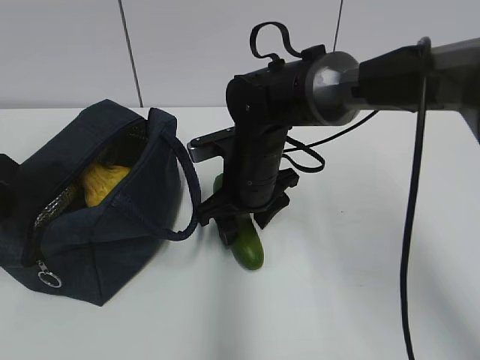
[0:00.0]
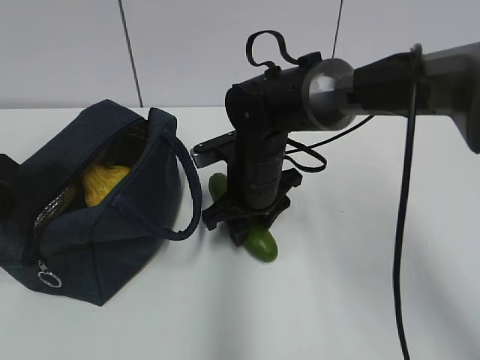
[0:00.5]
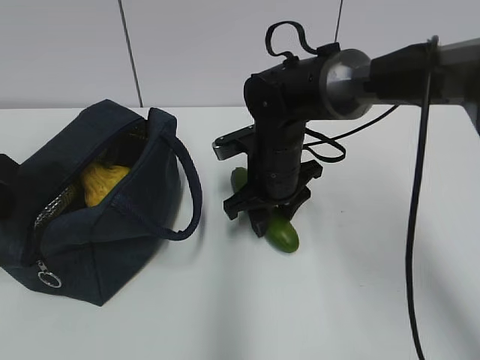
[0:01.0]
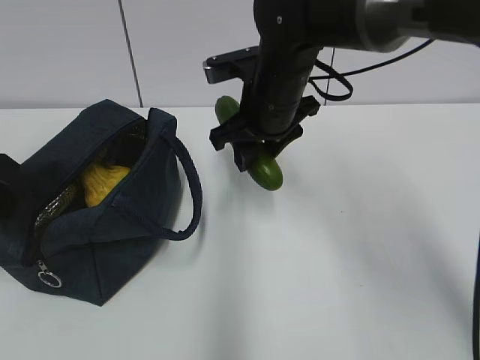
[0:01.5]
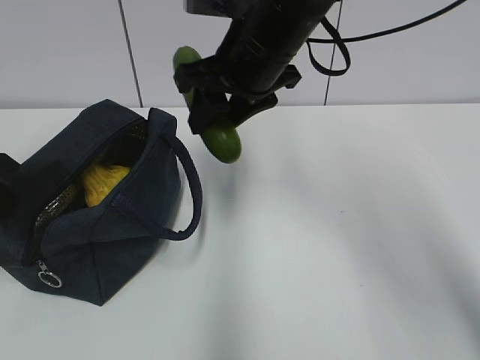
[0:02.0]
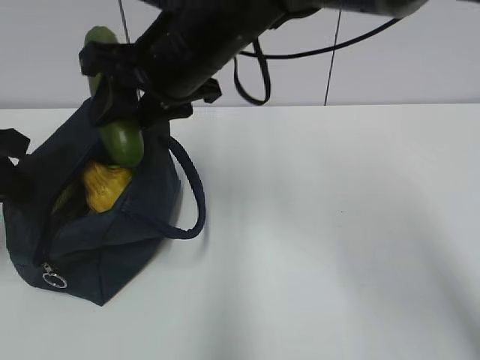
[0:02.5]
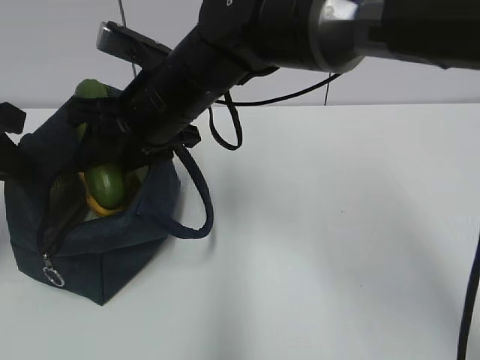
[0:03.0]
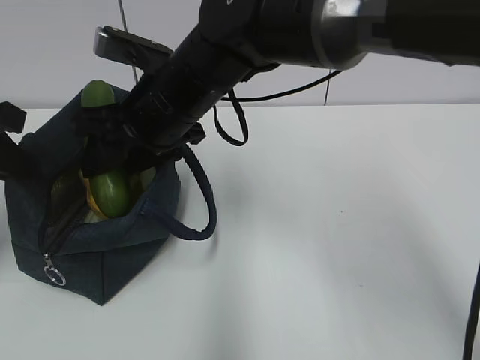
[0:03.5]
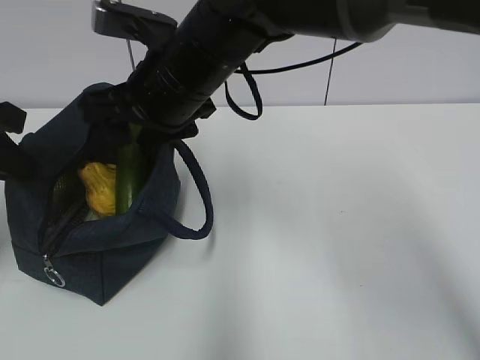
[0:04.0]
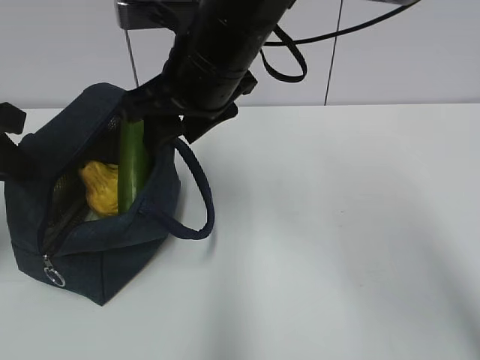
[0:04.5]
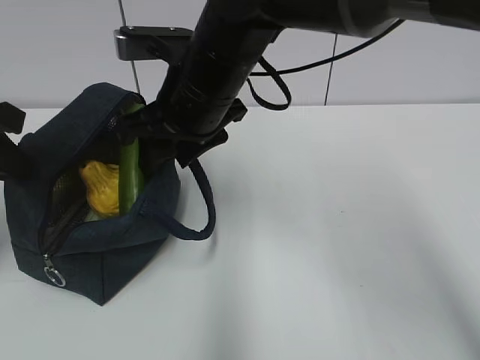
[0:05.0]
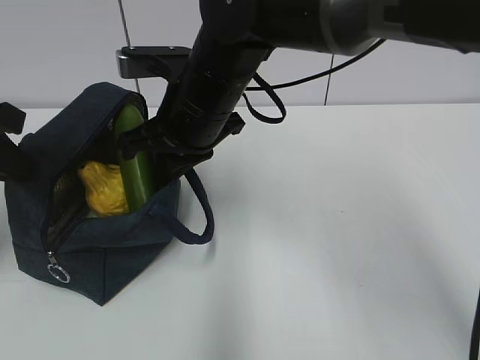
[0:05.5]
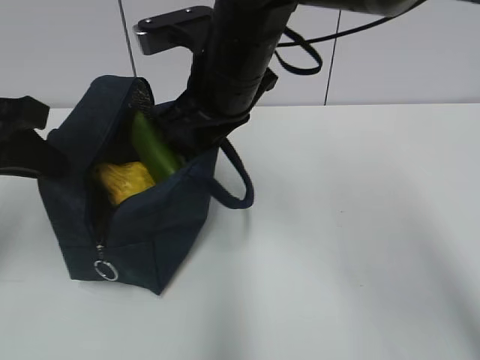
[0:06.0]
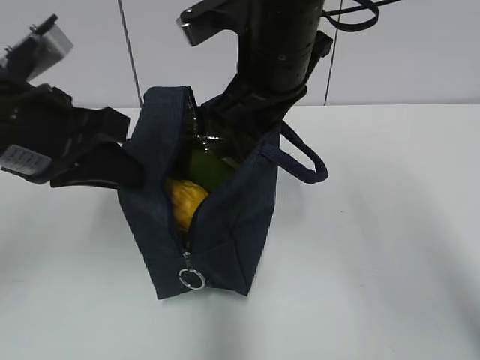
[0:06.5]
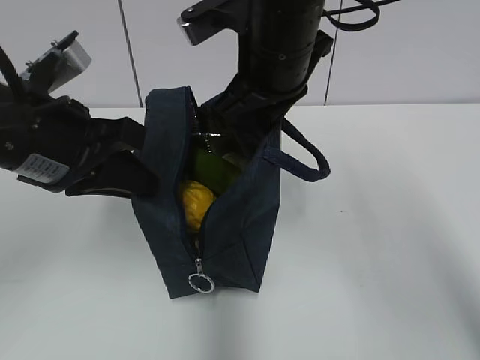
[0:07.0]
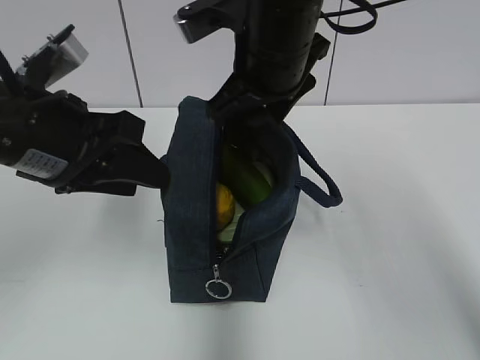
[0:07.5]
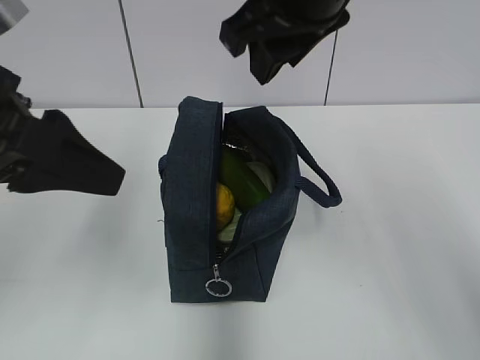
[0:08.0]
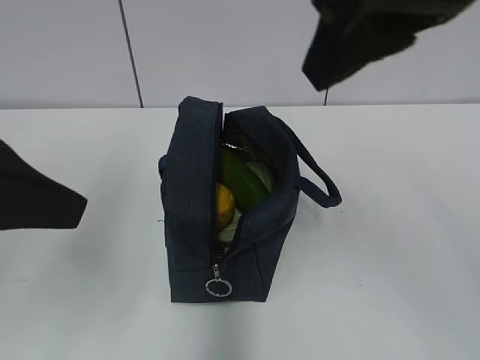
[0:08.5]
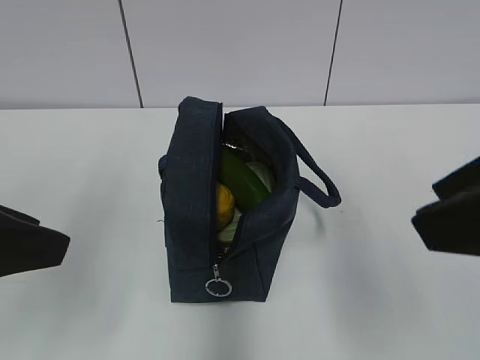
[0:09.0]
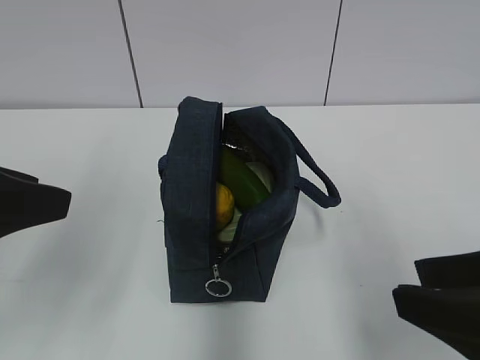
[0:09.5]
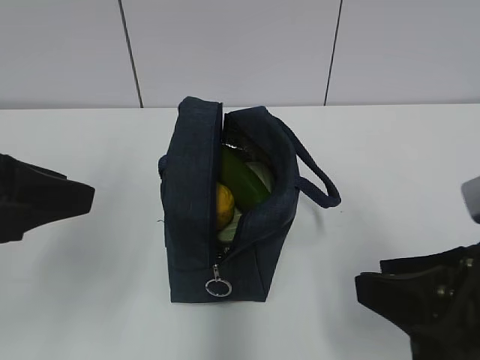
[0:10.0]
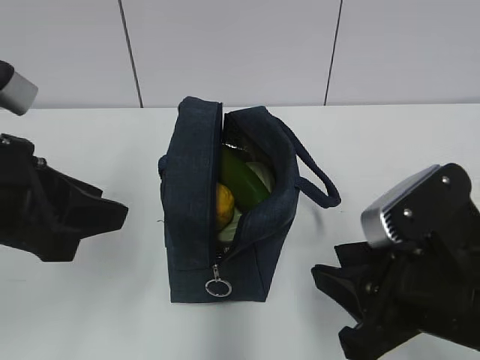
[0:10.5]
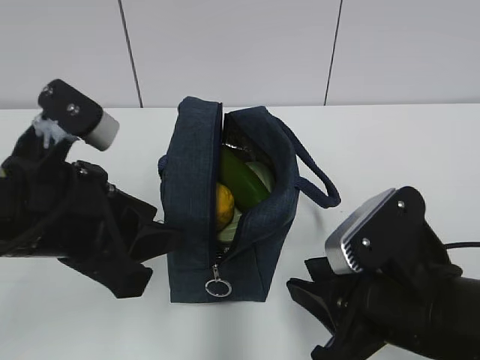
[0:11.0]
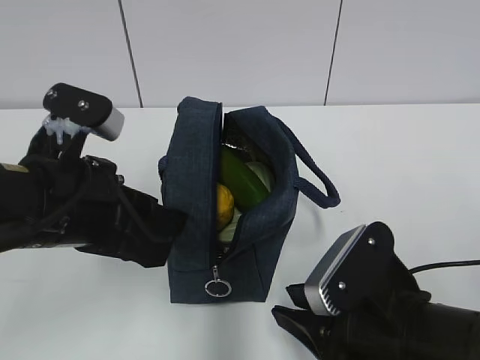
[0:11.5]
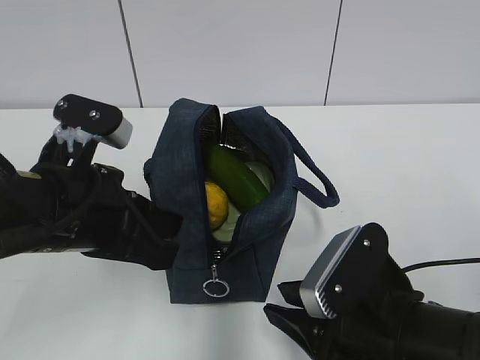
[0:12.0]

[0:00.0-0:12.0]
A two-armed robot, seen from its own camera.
Step, 1.0 to 4.5 s: Place it into the bag with your right hand.
Step, 5.0 to 5.5 s: Grab the lunch bag with your right hand.
0.0 to 2.0 s: The right gripper shifts approximately 15 cm upward.
2.0 to 4.0 s: The right gripper travels to the left by approximately 5 cm.
4.0 to 6.0 s: The right gripper closes up.
6.0 to 8.0 s: The left gripper heads backward and to the right, covering some 5 cm, and opens its fingers, while the right gripper heads upward and to the right, covering some 10 cm, and opens.
8.0 to 10.0 s: The right gripper shifts roughly 25 cm backward, downward and to the right.
10.0 to 12.0 s: The left gripper shifts about 10 cm to the right and downward, and closes its fingers, while the right gripper heads downward and to the left, covering approximately 10 cm.

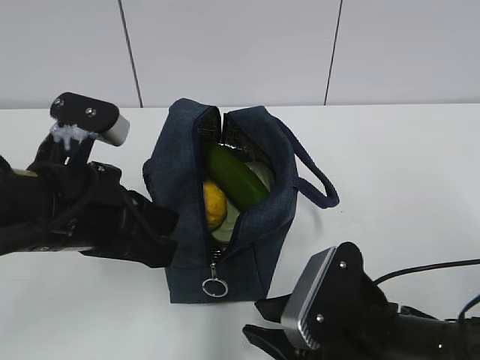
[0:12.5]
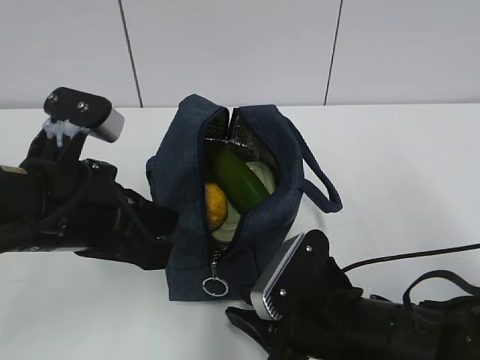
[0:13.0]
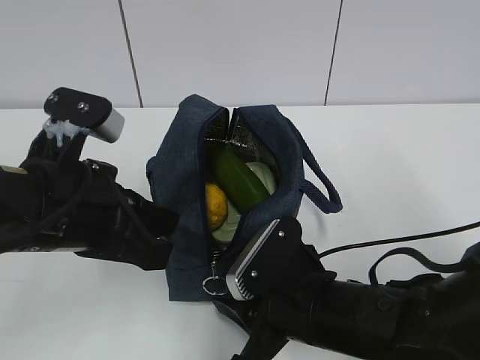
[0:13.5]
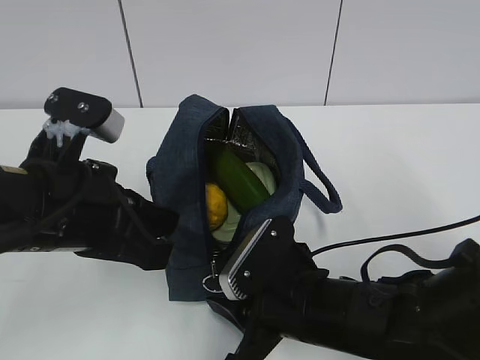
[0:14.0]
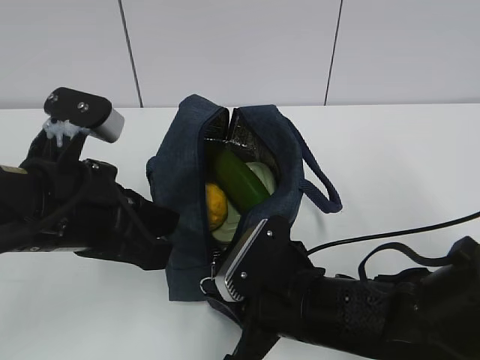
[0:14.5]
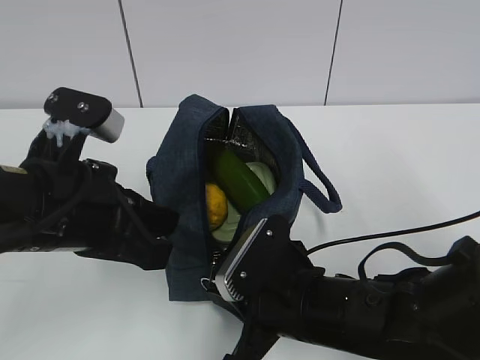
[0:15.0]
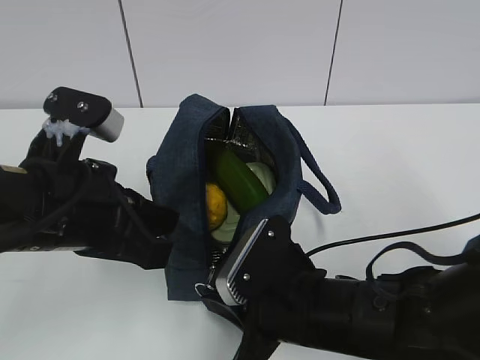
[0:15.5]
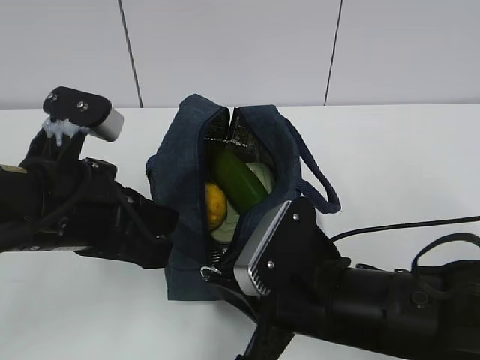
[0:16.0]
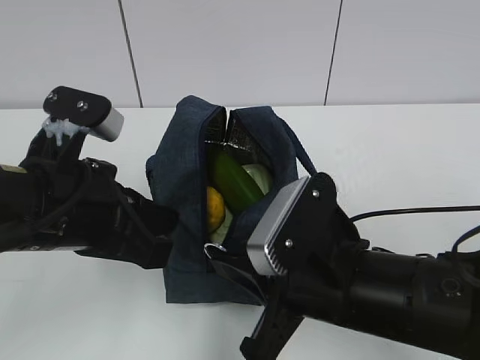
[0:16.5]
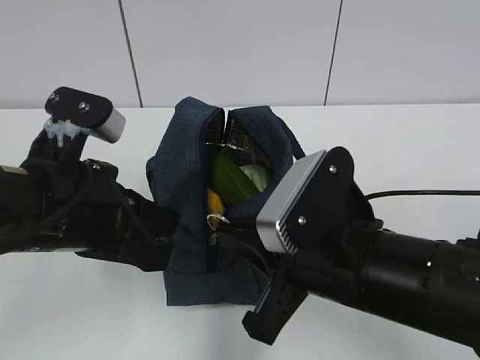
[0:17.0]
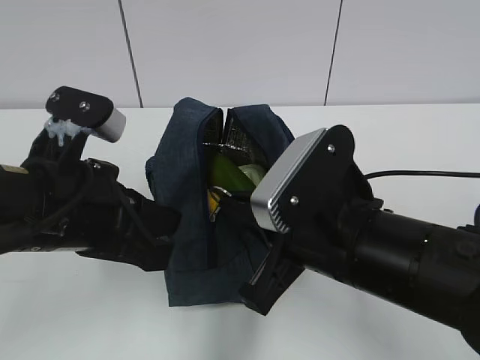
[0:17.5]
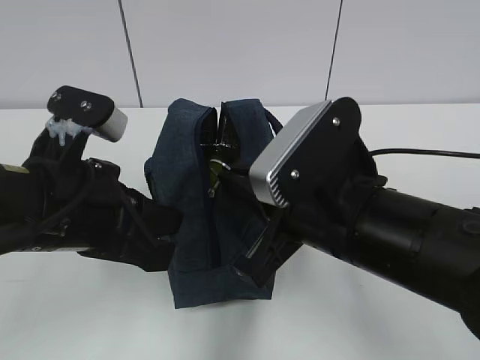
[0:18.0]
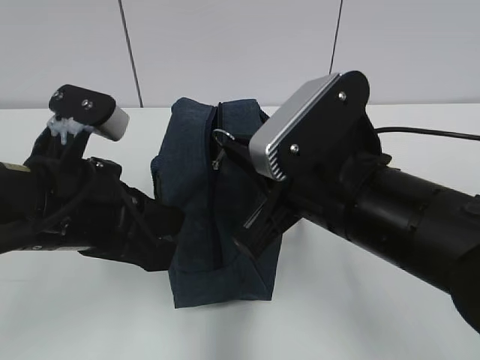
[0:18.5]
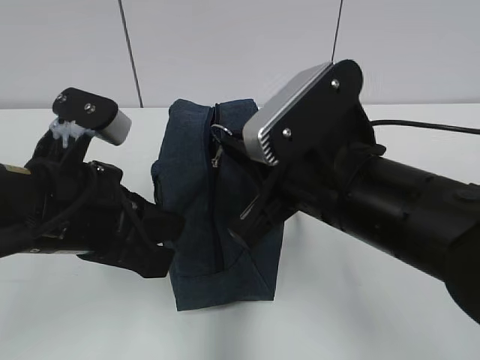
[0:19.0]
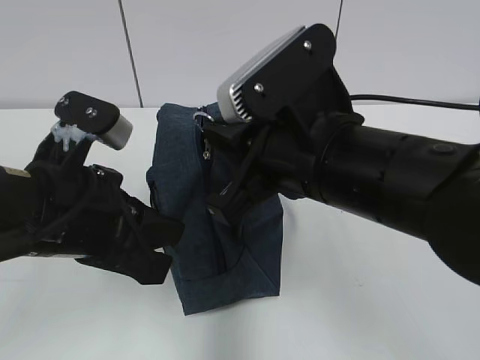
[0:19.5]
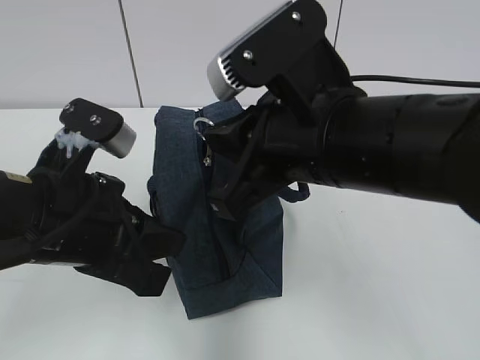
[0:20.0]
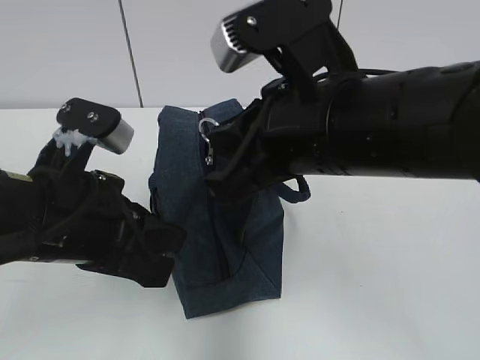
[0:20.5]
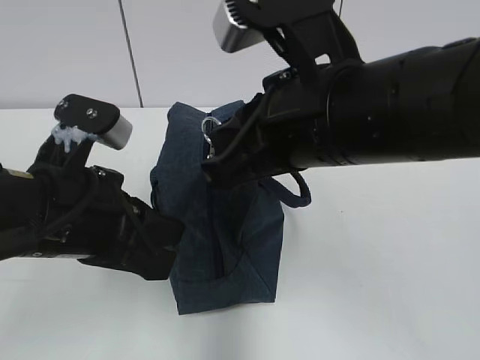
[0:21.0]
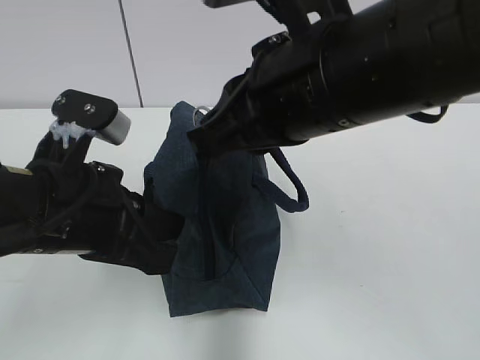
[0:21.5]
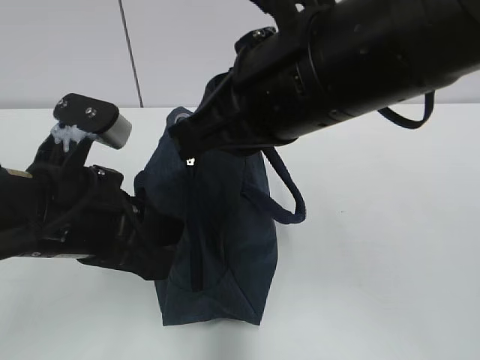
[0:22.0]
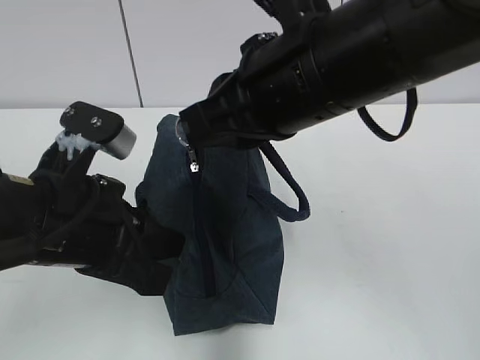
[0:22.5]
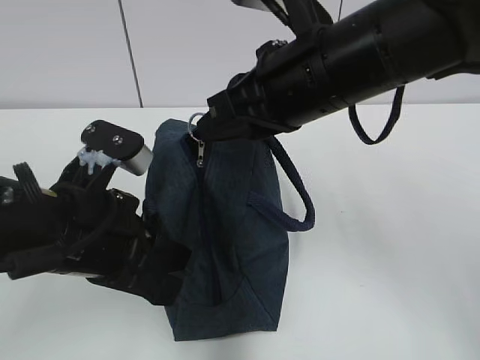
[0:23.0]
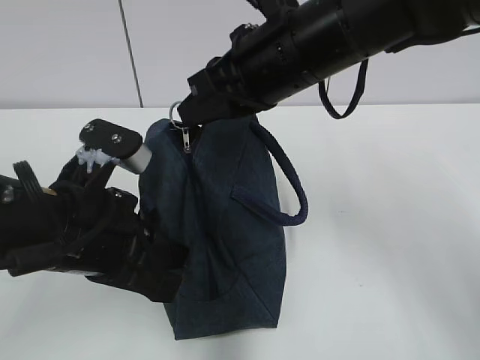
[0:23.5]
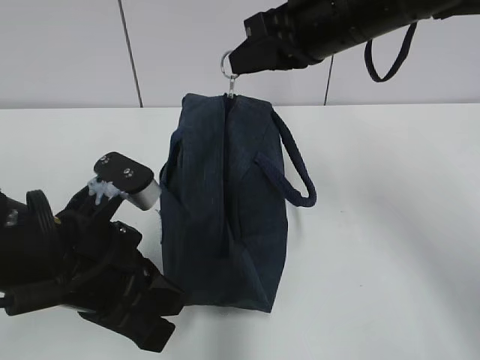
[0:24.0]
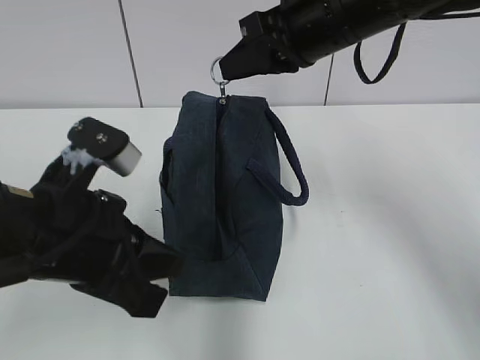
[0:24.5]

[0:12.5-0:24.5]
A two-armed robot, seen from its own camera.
12.5 to 14.5 s: The right gripper shifts by about 5 cm.
14.5 to 16.5 s: The right gripper heads upward, covering roughly 5 cm.
16.5 to 18.5 s: The right gripper travels upward by some 5 cm.
18.5 to 20.5 s: The right gripper travels upward by roughly 5 cm.
22.5 to 24.5 s: The right gripper heads forward, covering about 10 cm.

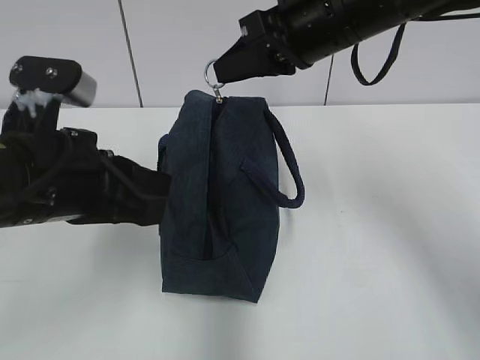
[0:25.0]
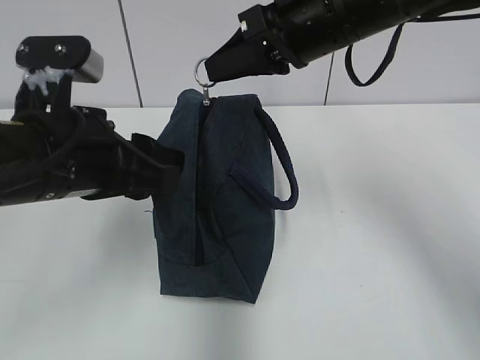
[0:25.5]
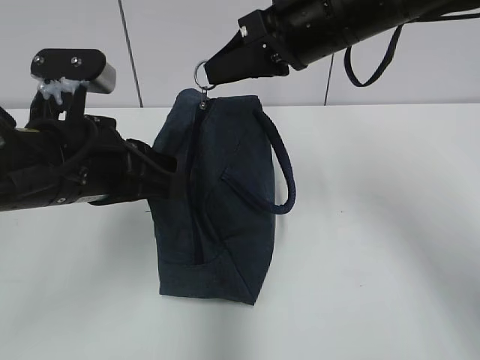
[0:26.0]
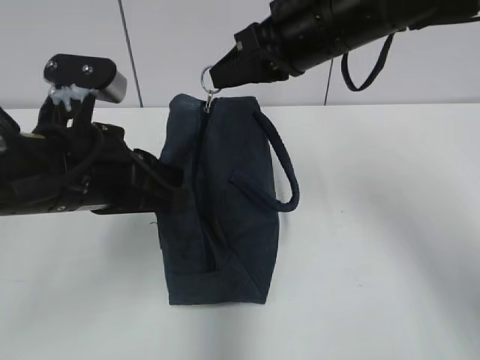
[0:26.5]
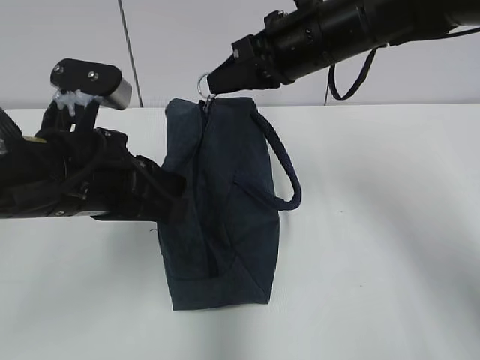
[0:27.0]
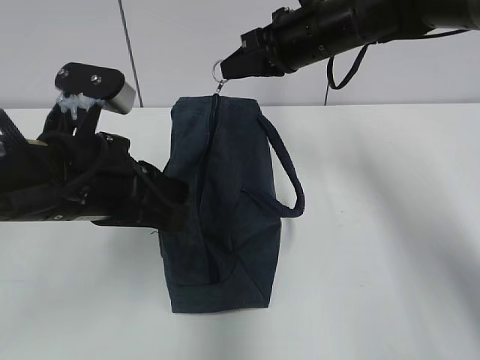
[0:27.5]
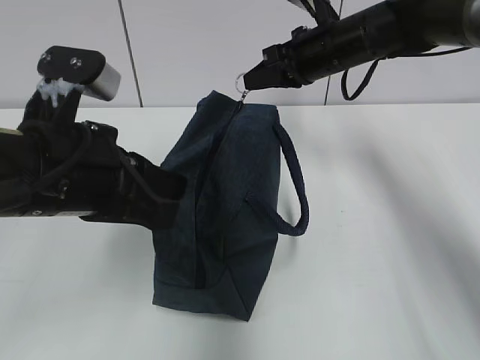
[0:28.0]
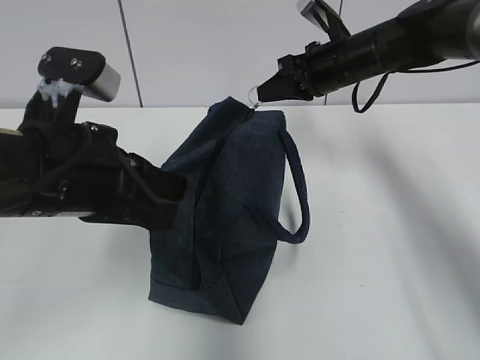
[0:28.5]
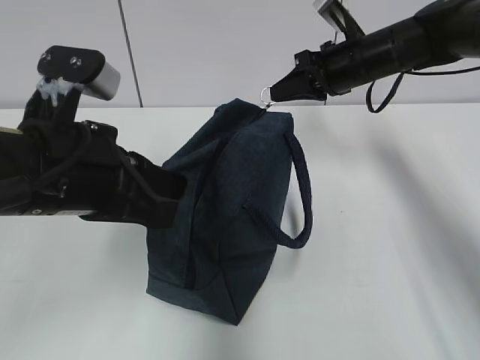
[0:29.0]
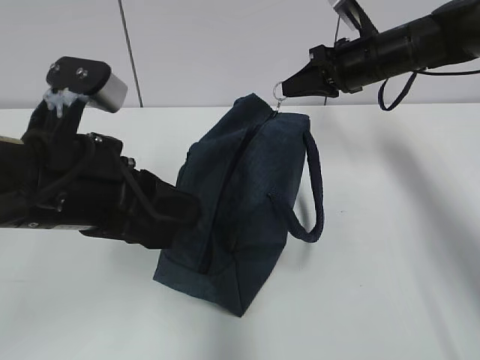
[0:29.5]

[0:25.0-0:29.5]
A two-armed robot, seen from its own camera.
25.0 to 27.0 s: There are only small adjustments of the grippers.
27.0 to 29.5 s: The right gripper shifts roughly 15 cm to the right, forward and downward, while the left gripper opens its fingers.
